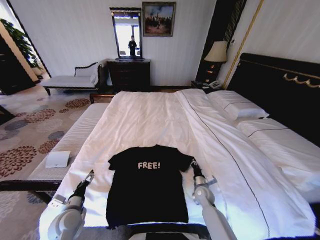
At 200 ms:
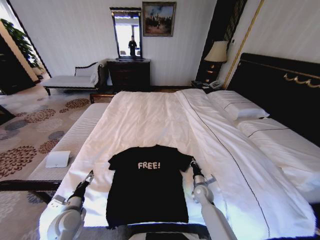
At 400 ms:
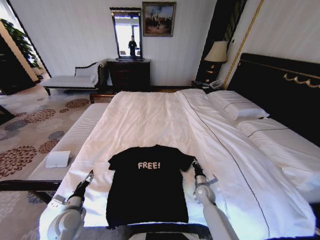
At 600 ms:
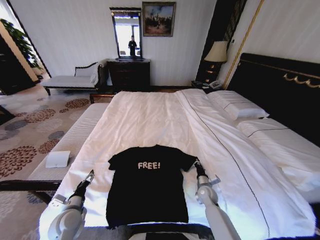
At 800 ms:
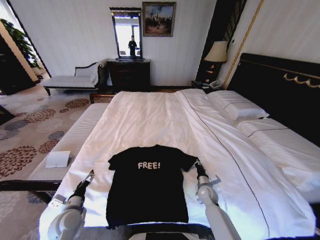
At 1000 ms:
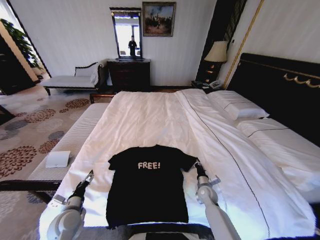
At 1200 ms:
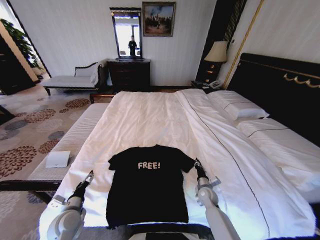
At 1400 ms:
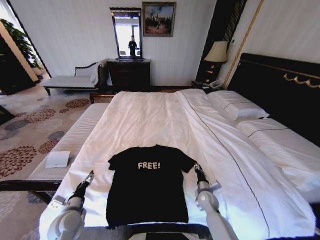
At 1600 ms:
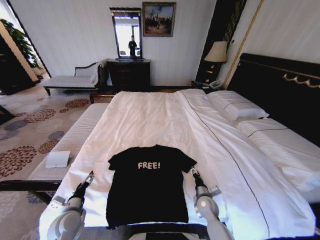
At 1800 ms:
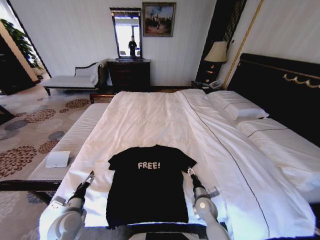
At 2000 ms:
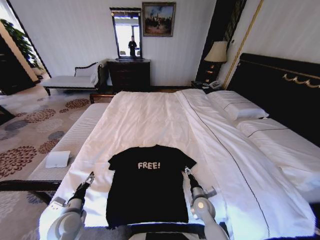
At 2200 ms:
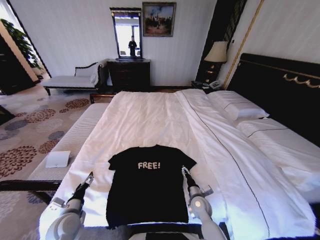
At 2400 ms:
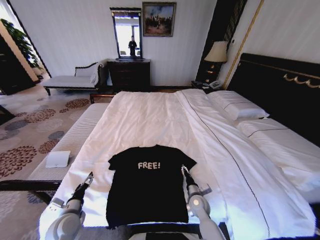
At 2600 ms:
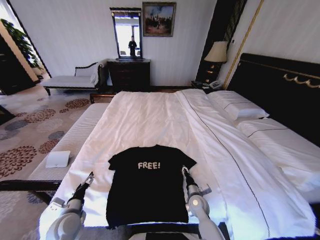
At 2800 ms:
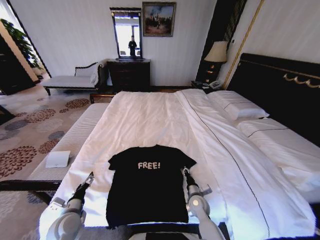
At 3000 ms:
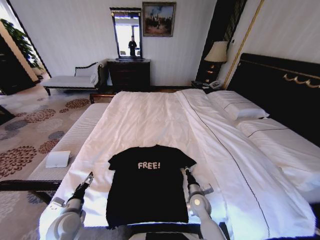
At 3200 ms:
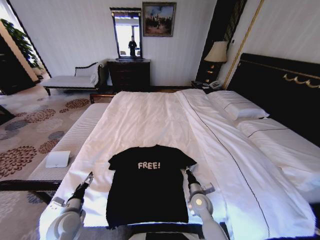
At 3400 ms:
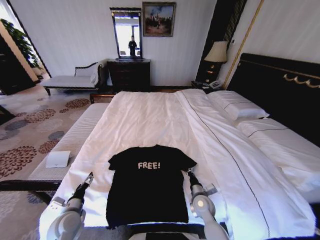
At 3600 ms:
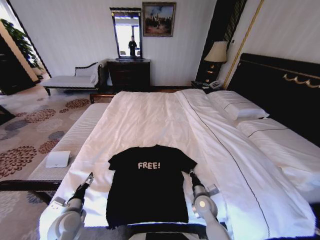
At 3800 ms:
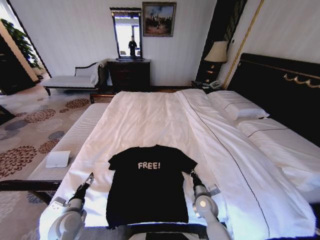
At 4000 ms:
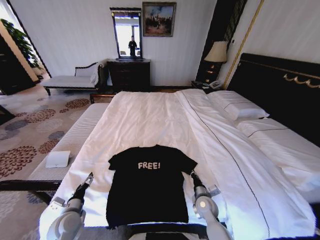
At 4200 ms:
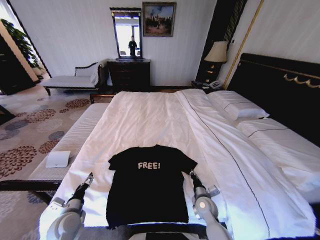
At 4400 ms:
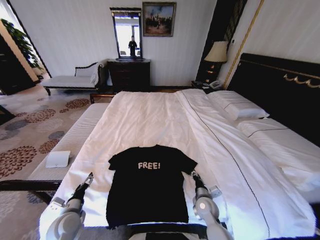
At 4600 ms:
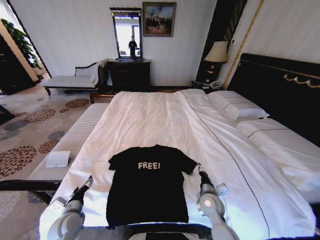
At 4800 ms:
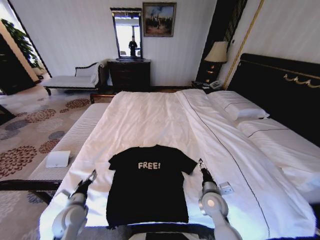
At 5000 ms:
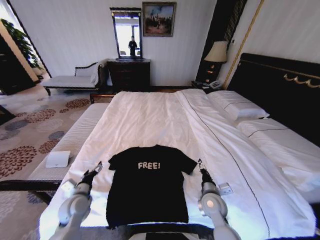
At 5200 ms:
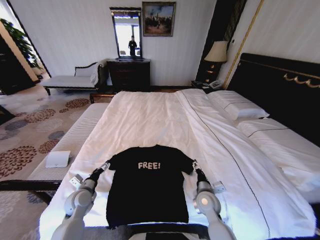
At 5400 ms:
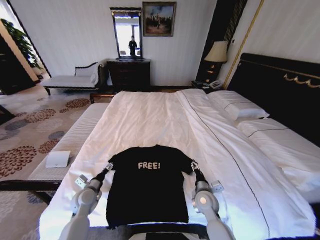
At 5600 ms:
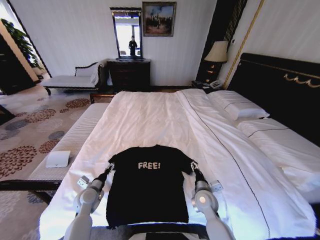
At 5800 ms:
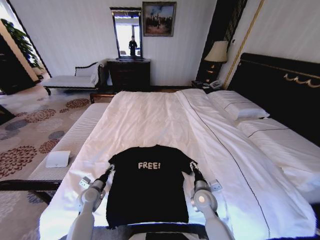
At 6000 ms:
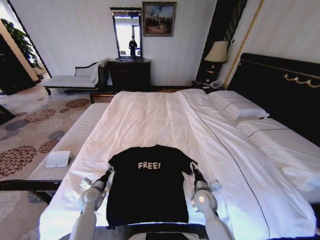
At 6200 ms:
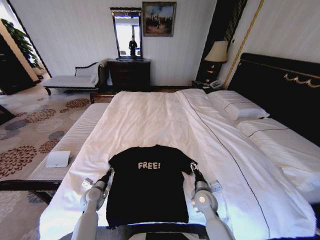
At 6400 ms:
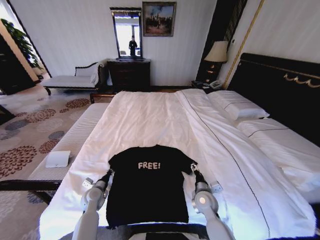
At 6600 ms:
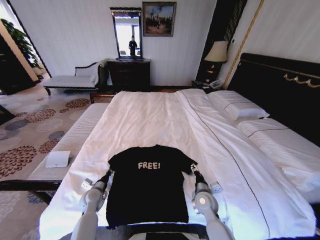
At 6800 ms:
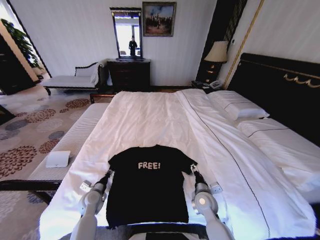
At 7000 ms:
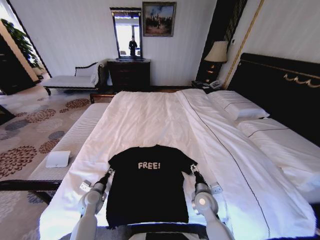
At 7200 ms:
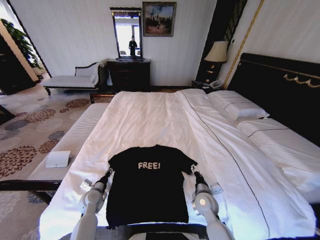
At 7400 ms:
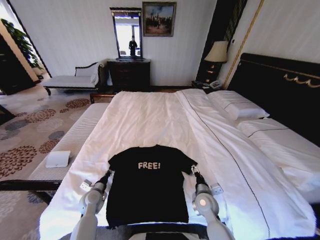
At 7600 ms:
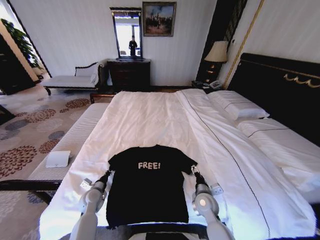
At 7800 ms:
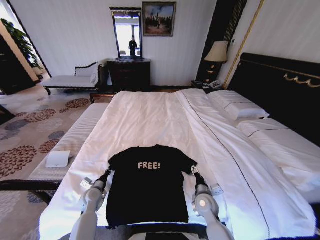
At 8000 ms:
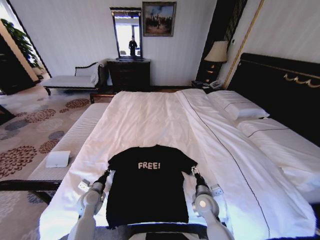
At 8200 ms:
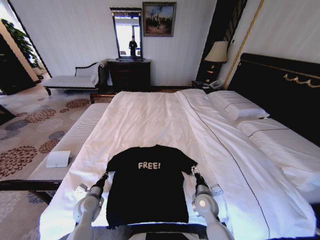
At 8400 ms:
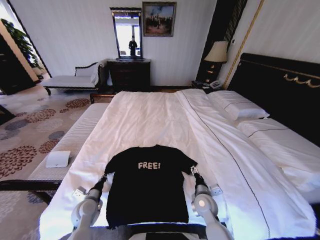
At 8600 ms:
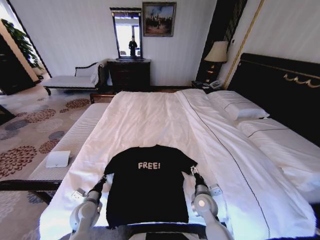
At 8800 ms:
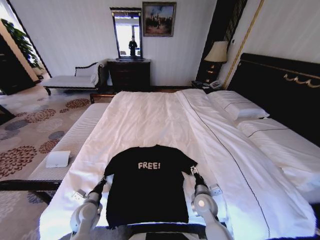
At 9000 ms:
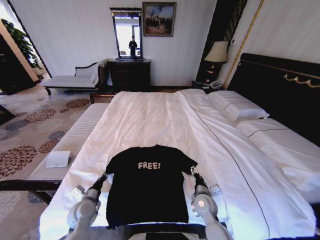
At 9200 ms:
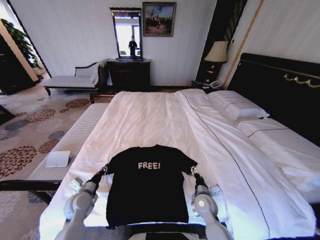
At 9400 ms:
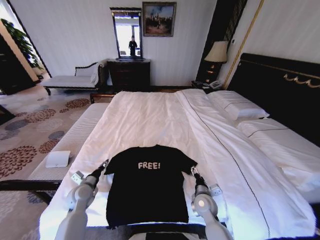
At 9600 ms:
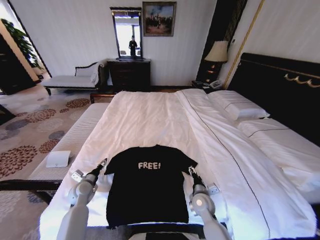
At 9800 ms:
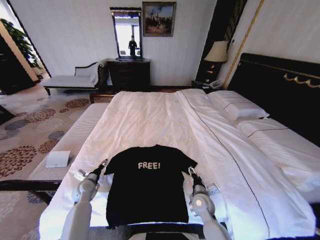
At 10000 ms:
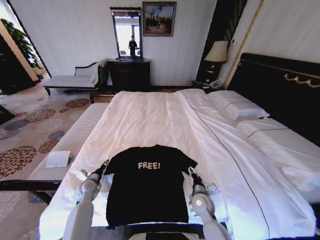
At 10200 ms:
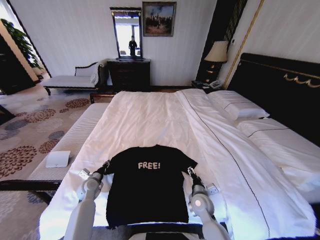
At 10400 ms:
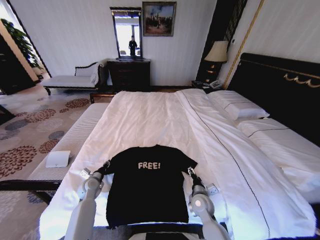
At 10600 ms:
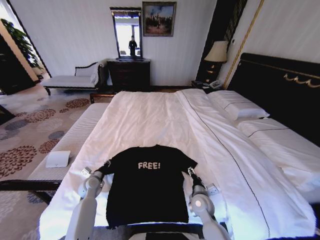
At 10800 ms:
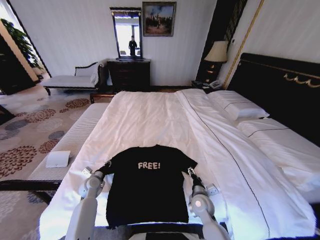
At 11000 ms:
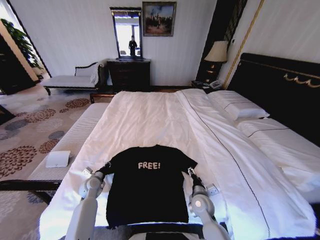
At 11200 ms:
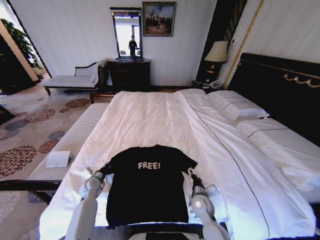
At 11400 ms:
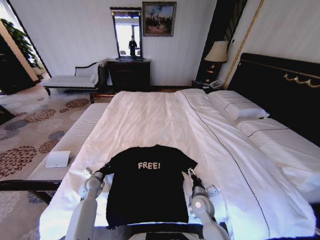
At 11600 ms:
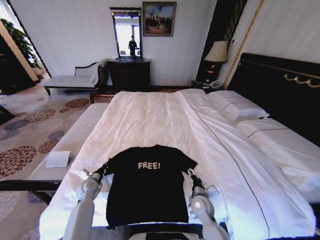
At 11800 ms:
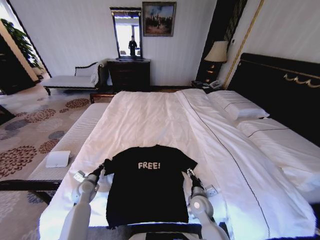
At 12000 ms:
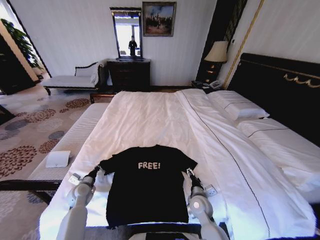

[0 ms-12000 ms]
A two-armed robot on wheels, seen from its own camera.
Task of the whole recording: Fold the clothes on the bed.
0 ms to 1600 ms: The right gripper goes approximately 5 cm backward, and opens.
1600 ms to 3000 ms: The right gripper closes.
3000 ms to 4400 ms: The grippers move only a little.
4400 ms to 6000 ms: The left gripper moves forward and downward, some 10 cm, while the right gripper opens its fingers.
6000 ms to 7600 ms: The left gripper closes its fingers.
7600 ms to 9000 ms: The left gripper goes roughly 5 cm backward.
9000 ms to 10400 ms: The left gripper goes about 10 cm forward, and opens and closes again.
10400 ms to 12000 ms: The left gripper closes.

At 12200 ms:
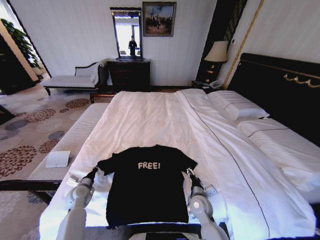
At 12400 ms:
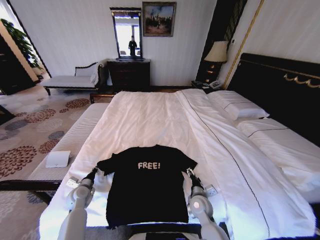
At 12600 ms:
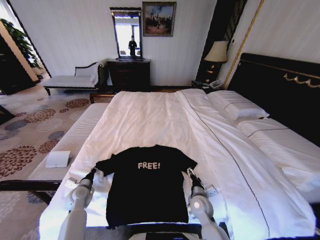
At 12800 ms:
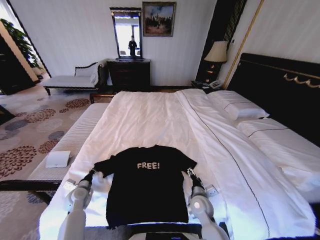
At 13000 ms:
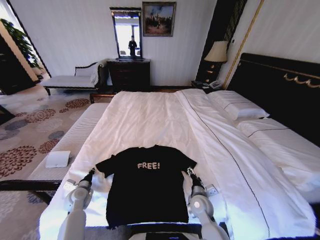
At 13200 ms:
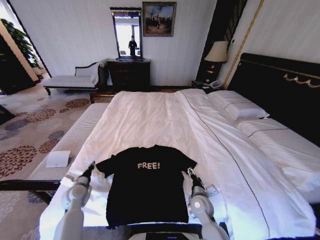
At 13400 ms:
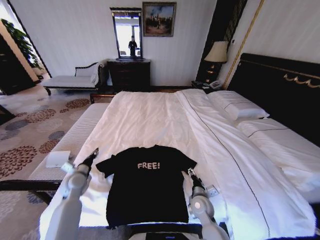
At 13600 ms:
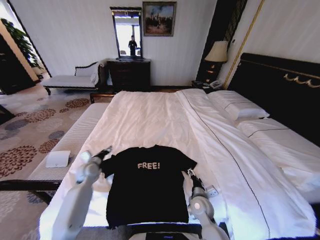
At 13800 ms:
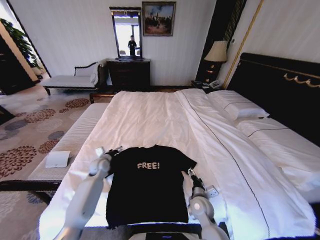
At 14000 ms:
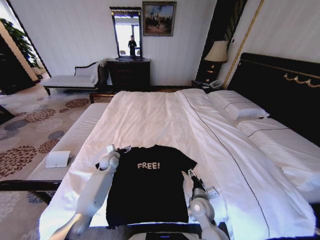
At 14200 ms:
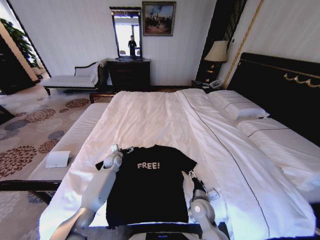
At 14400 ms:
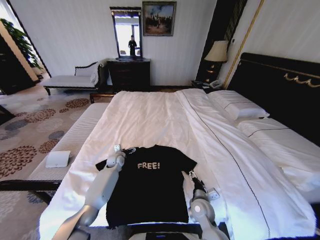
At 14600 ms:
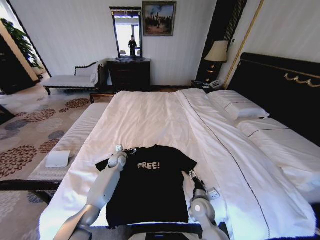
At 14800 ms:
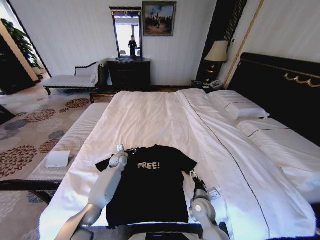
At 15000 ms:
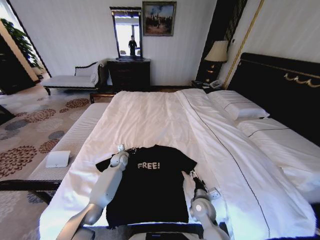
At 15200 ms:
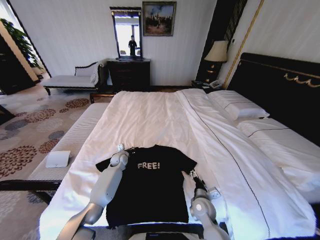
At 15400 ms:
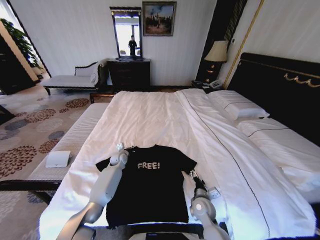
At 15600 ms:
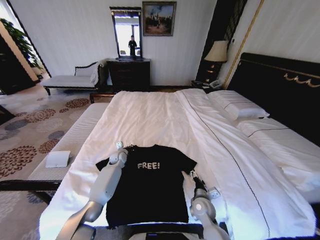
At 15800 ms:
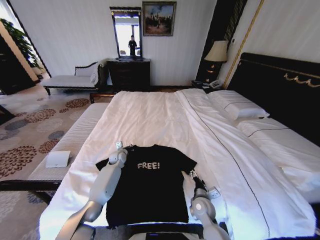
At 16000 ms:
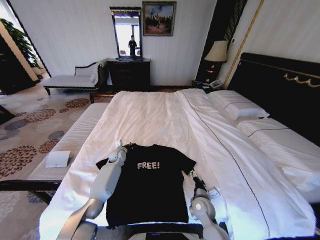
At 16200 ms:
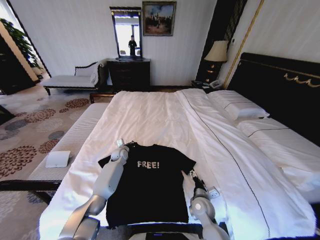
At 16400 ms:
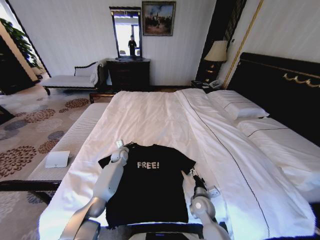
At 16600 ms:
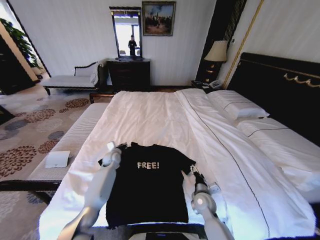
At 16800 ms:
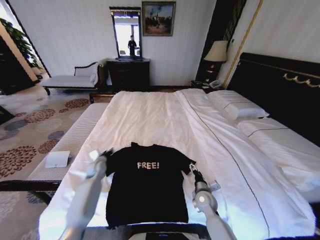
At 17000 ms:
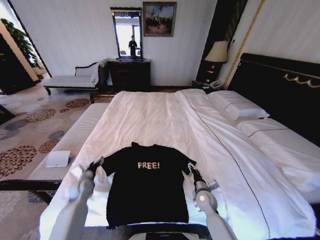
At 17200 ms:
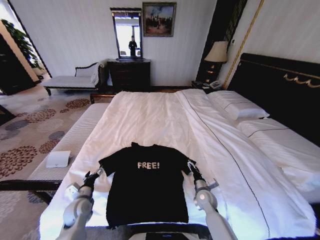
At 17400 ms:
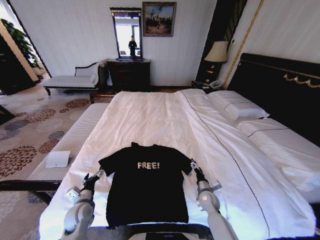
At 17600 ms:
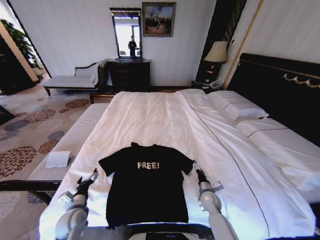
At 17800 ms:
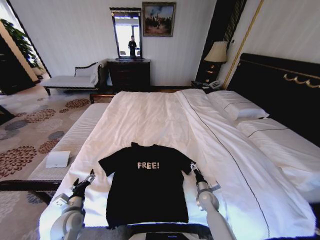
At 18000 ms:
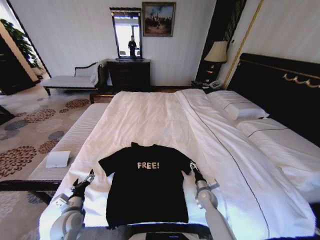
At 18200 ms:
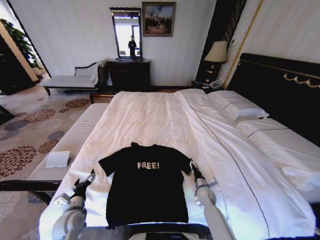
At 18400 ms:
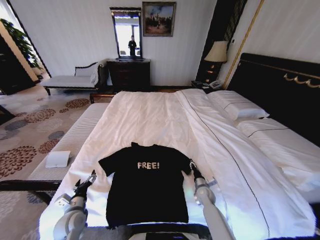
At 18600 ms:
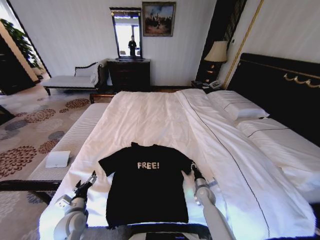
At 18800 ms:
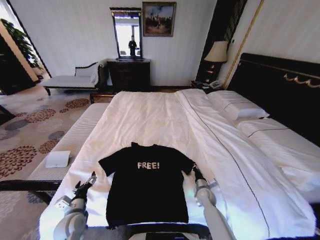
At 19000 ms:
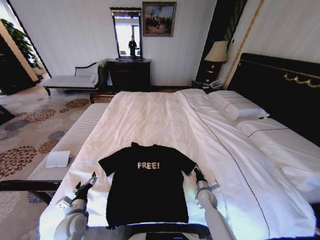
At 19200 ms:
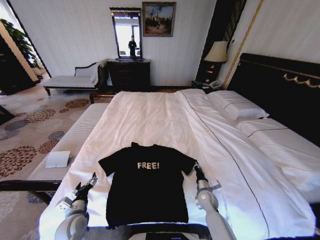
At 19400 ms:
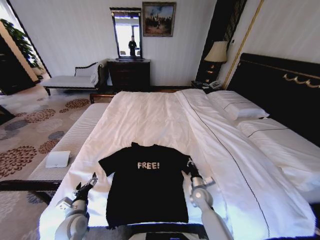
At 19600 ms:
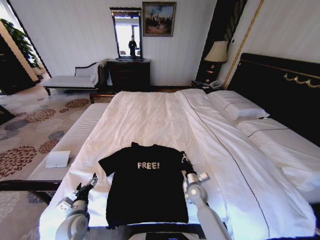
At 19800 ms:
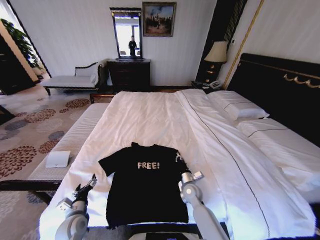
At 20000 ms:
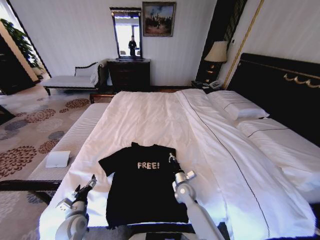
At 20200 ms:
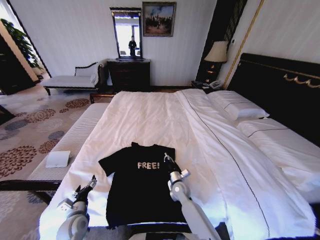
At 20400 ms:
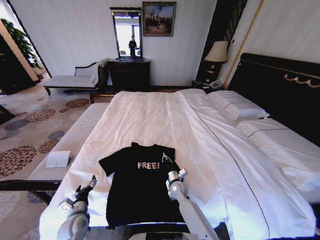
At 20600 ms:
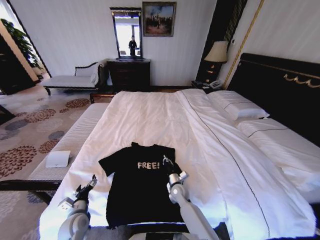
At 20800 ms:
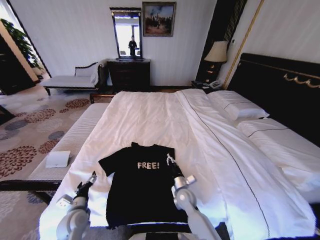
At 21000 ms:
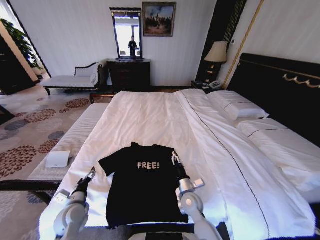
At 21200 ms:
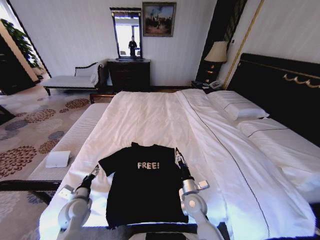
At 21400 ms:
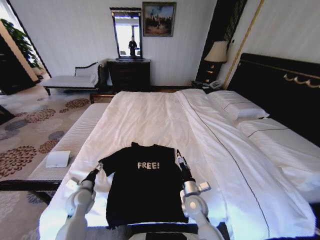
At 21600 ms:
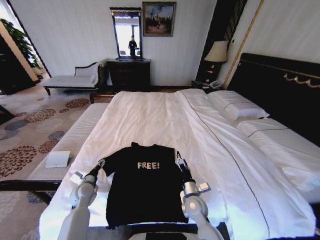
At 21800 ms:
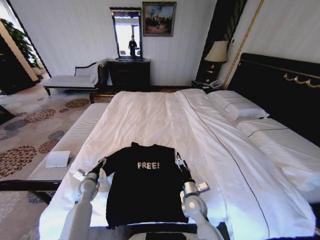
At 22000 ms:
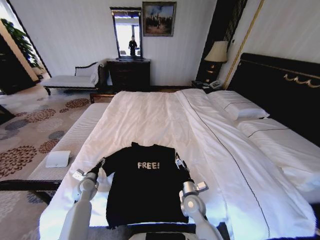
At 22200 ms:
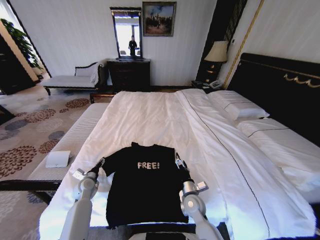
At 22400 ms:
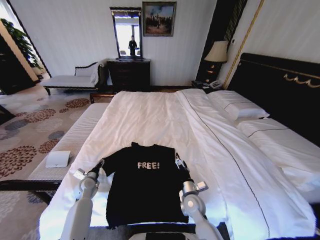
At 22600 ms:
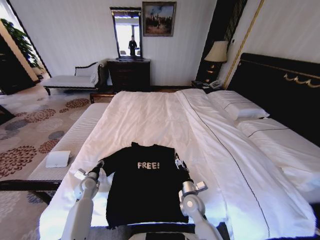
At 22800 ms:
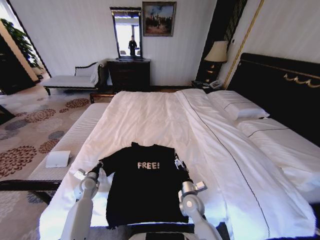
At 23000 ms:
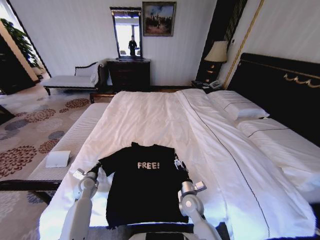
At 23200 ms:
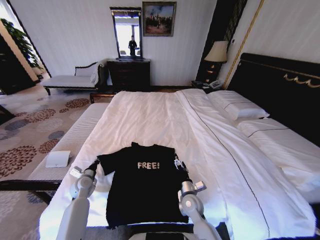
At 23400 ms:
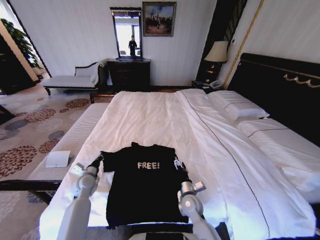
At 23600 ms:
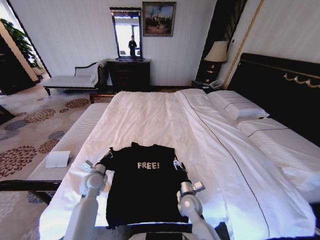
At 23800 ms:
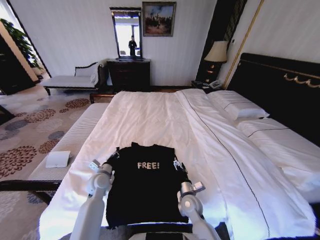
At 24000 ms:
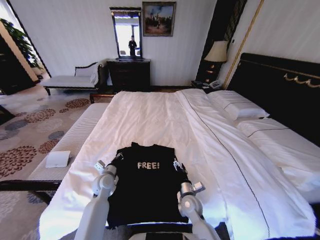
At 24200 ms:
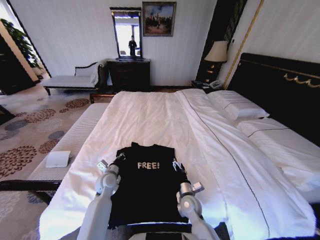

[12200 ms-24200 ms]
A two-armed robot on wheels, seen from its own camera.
Task of the whole recording: Fold the clothes on the bed.
12200 ms to 13800 ms: The left gripper moves forward and to the right, approximately 15 cm, and opens up.
13800 ms to 15200 ms: The left gripper heads to the right and forward, covering some 10 cm, and closes its fingers.
15200 ms to 16600 ms: The grippers make only small movements.
16600 ms to 18200 ms: The right gripper is displaced downward, to the right and forward by some 10 cm. Meanwhile the left gripper heads backward, covering about 30 cm, and opens up.
18200 ms to 19800 ms: The right gripper goes about 10 cm to the left and upward, and closes its fingers.
19800 ms to 21200 ms: The left gripper travels forward by approximately 5 cm. Meanwhile the right gripper heads backward, covering about 5 cm, and opens its fingers.
21200 ms to 22600 ms: The left gripper goes approximately 10 cm forward, and closes.
22600 ms to 24200 ms: The left gripper is displaced to the right and upward by approximately 15 cm, and closes its fingers.
